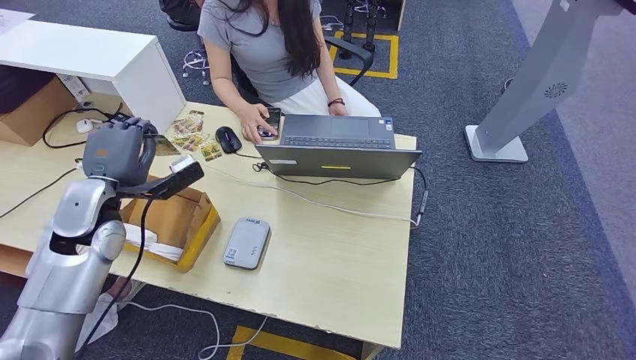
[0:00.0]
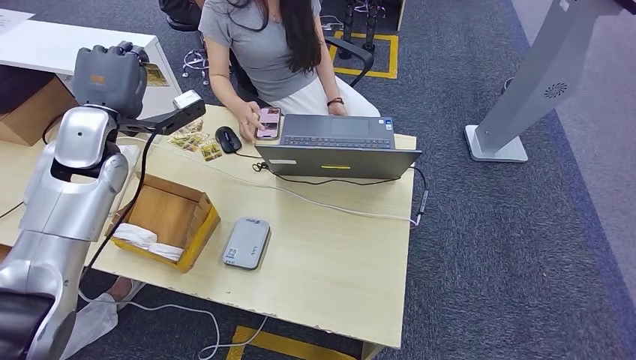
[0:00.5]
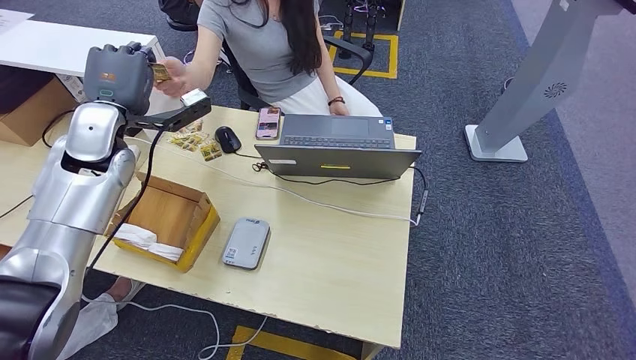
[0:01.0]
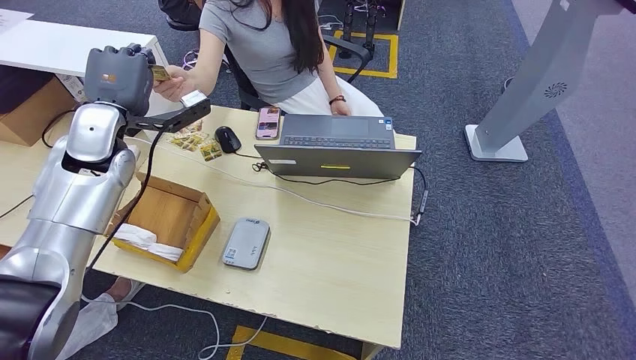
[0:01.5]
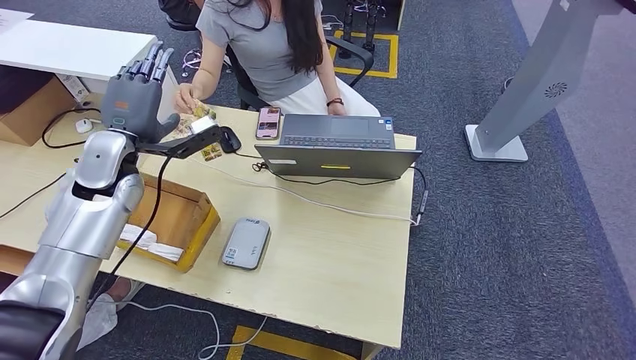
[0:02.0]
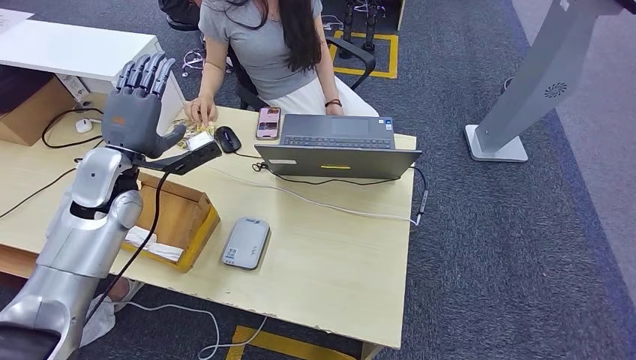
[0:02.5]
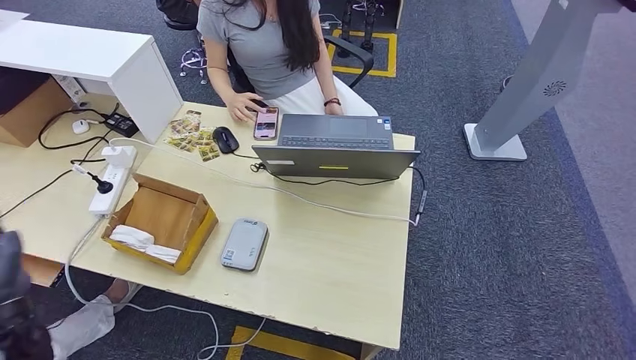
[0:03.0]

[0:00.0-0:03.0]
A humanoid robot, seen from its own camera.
Step, 0:00.0 to 0:02.5: Hand the room key to the person.
0:00.0 to 0:01.5: The left hand goes some 10 cm forward and upward.
0:01.5 to 0:03.0: The left hand travels backward and downward by about 30 cm.

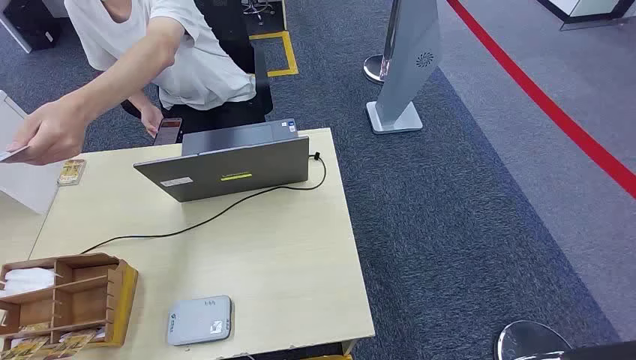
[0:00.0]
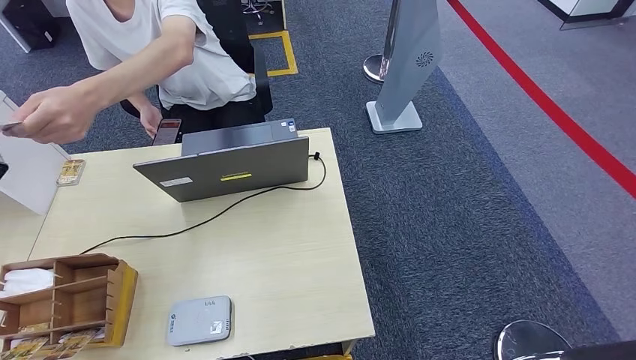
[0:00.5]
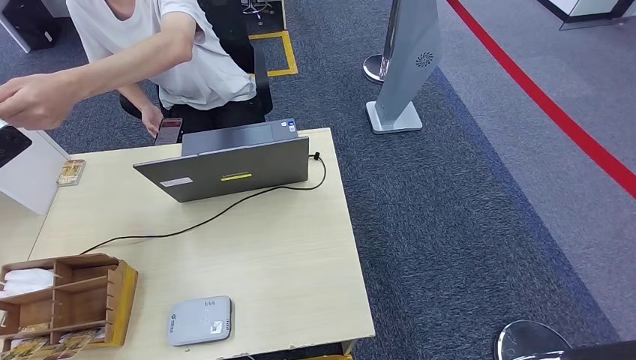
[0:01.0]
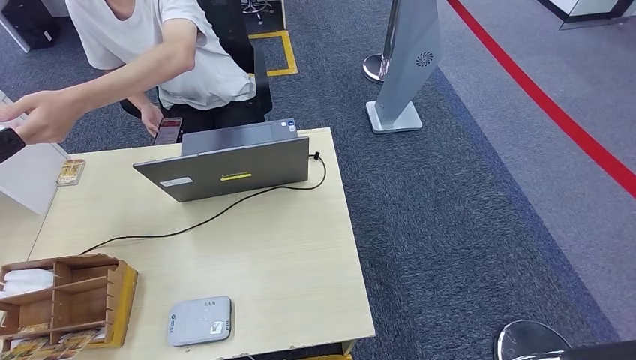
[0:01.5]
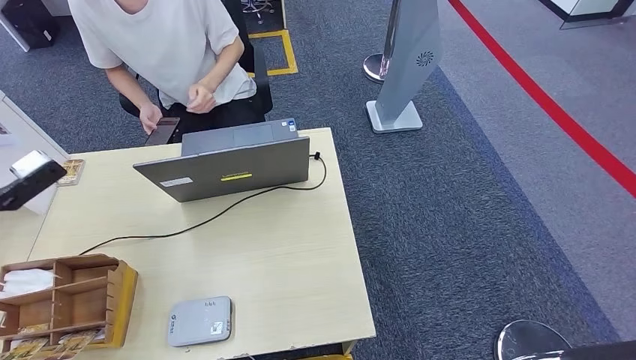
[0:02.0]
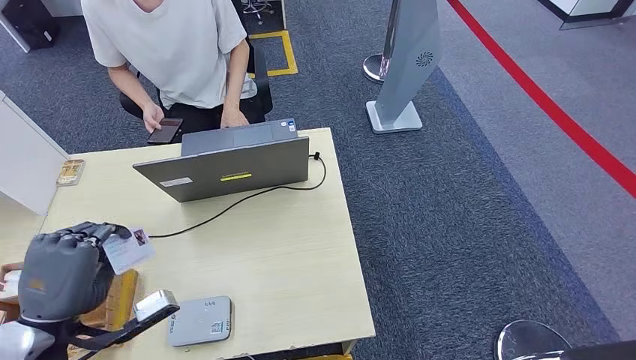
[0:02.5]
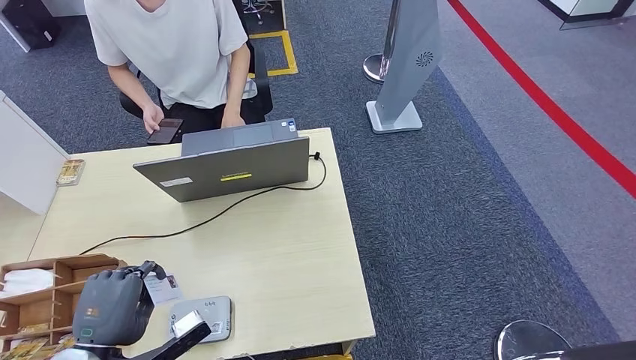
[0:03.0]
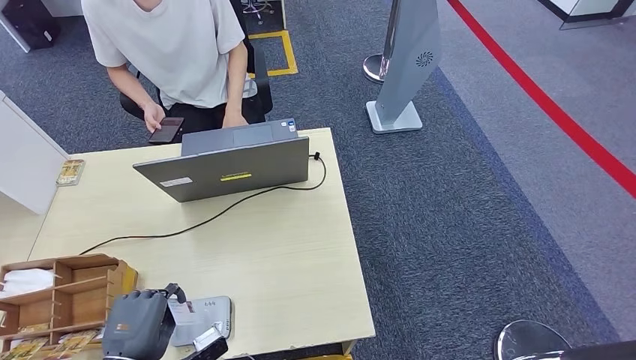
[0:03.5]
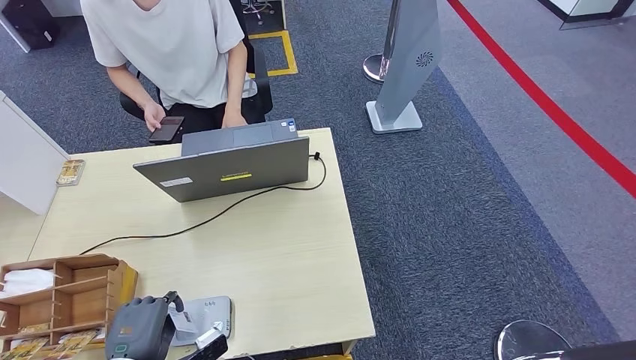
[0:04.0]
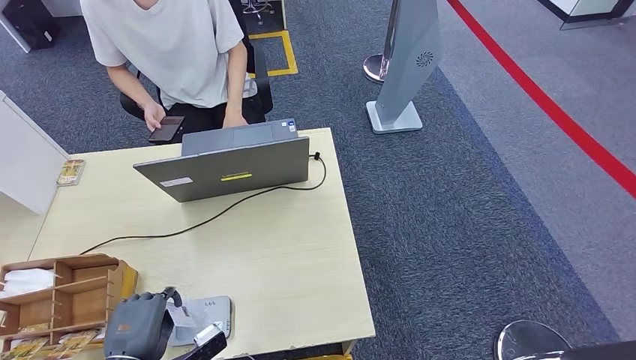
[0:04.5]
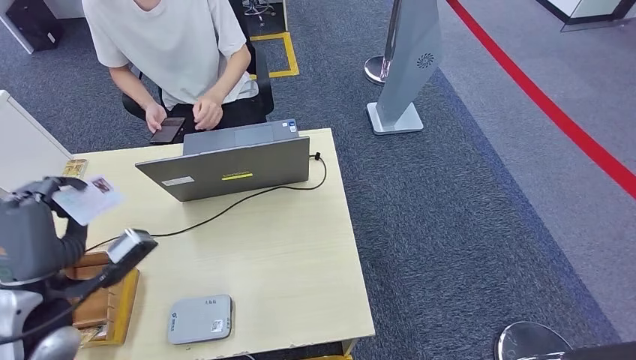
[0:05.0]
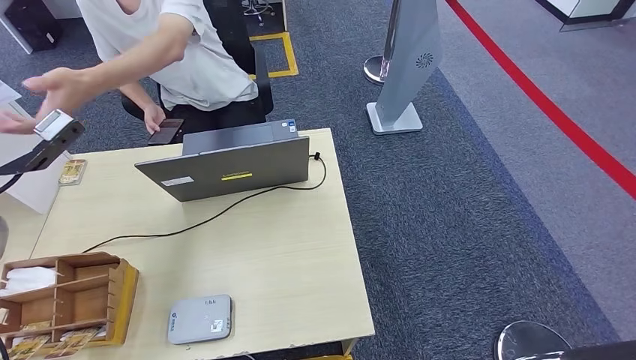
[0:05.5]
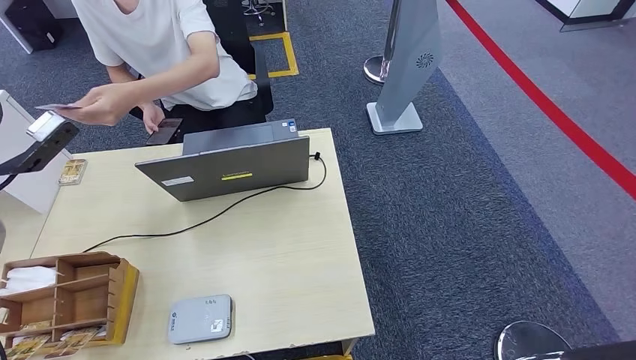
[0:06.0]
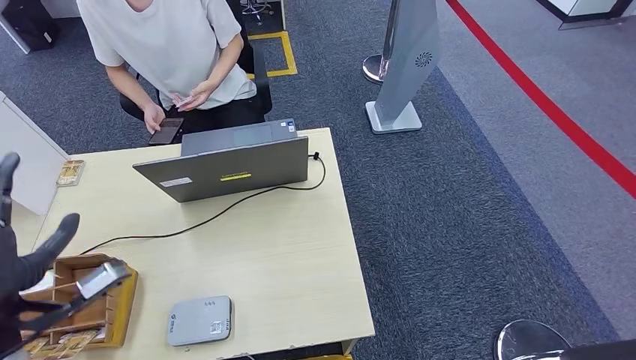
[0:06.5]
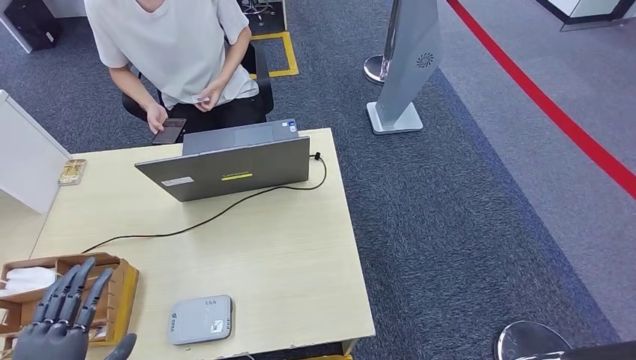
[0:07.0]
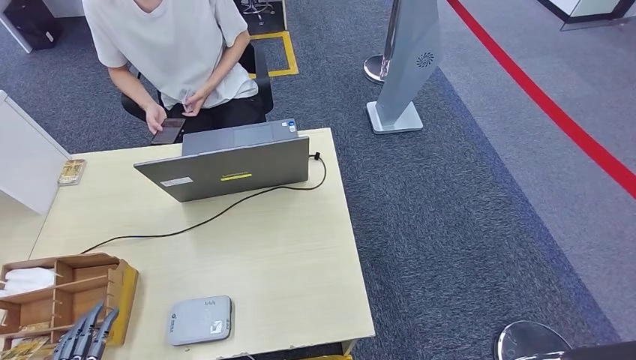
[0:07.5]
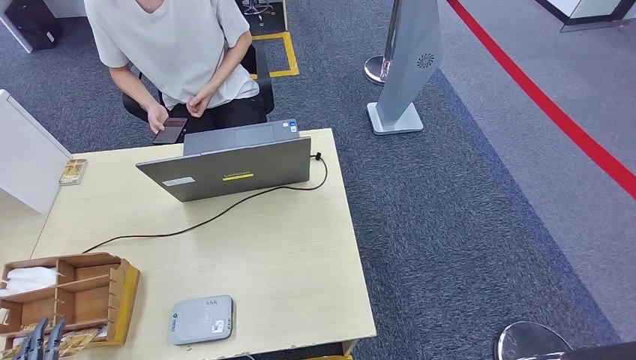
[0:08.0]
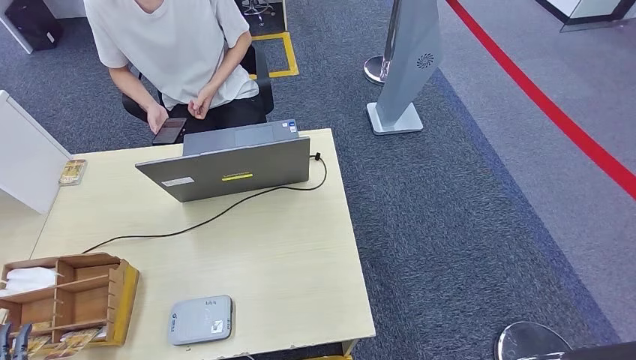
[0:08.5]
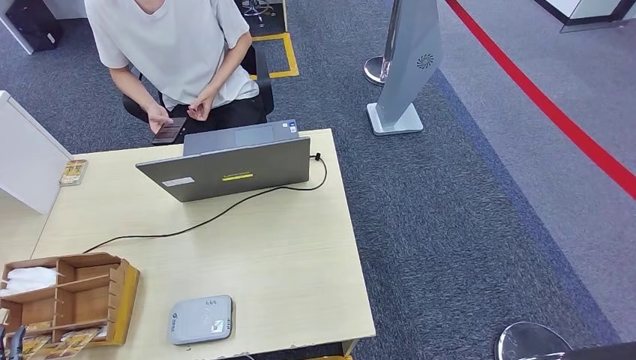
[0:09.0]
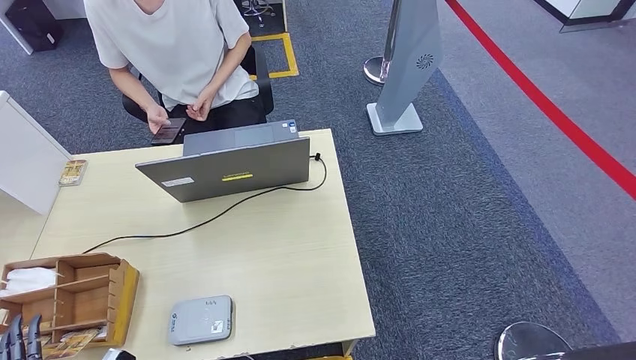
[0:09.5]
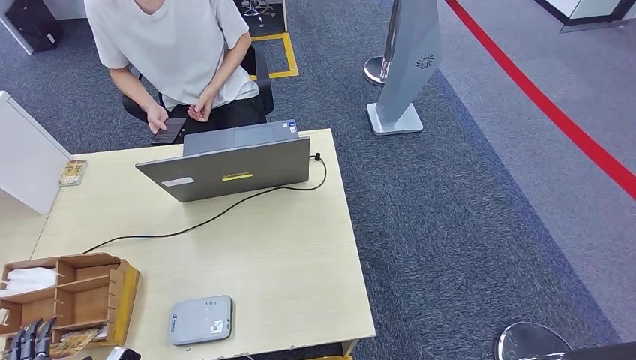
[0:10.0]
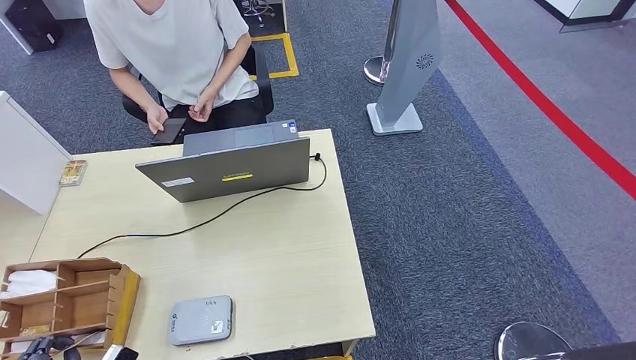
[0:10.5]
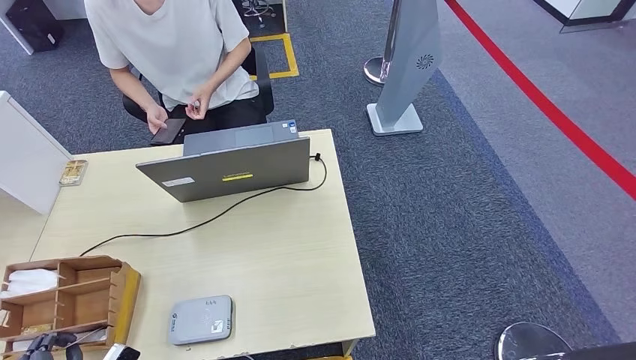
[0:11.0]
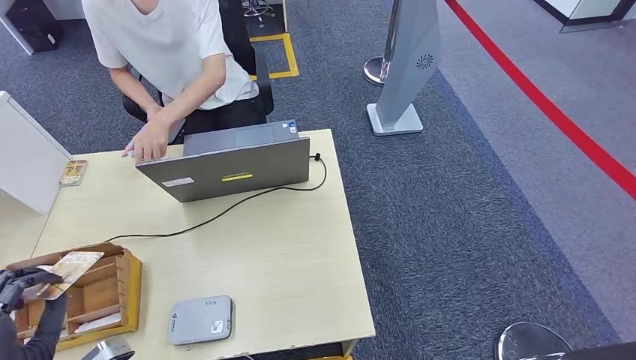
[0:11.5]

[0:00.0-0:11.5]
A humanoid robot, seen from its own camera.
Step, 0:00.0 to 0:01.0: Take the ID card from the person's hand.
Step, 0:01.5 to 0:05.5: Place the ID card on the card reader.
Step, 0:06.0 to 0:08.0: Hand the ID card to the person.
Step, 0:08.5 to 0:11.0: Pick up the room key from the key card box.
0:02.0 to 0:04.0: The right hand changes place by roughly 5 cm; the left hand shifts approximately 35 cm downward, backward and to the right.
0:04.0 to 0:06.0: The left hand heads forward, upward and to the left, covering some 35 cm, while the right hand heads downward, covering about 5 cm.
0:06.0 to 0:07.5: The left hand heads backward and downward, covering some 40 cm, while the right hand travels upward by about 5 cm.
0:07.5 to 0:09.5: The left hand travels downward and forward by approximately 10 cm.
0:09.5 to 0:11.5: The left hand moves upward, about 10 cm.

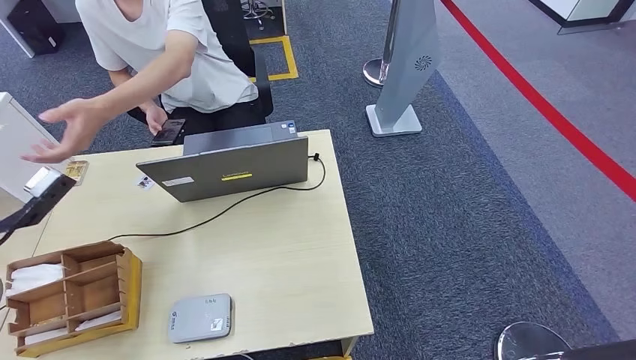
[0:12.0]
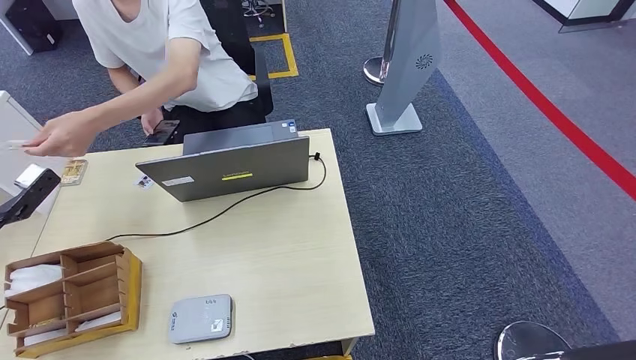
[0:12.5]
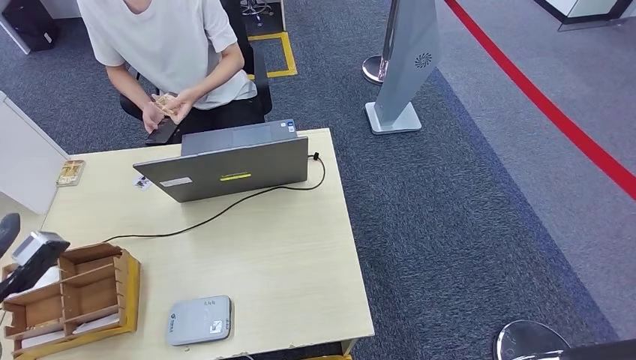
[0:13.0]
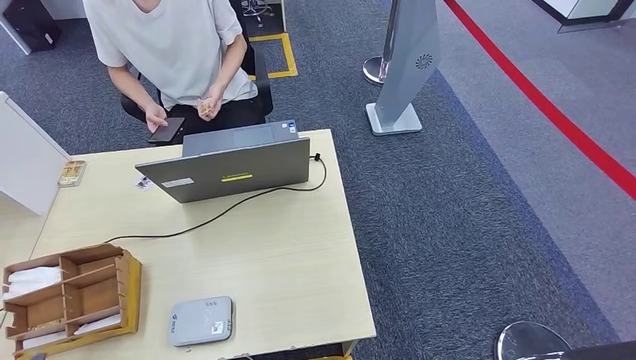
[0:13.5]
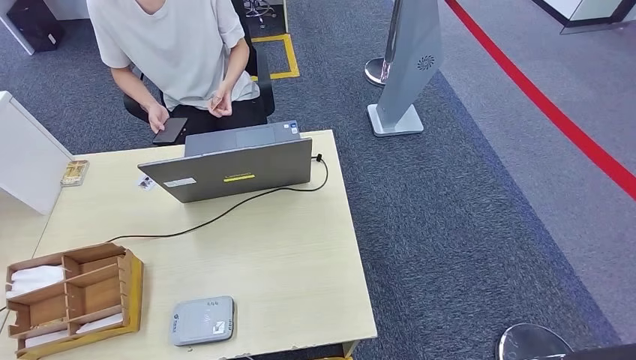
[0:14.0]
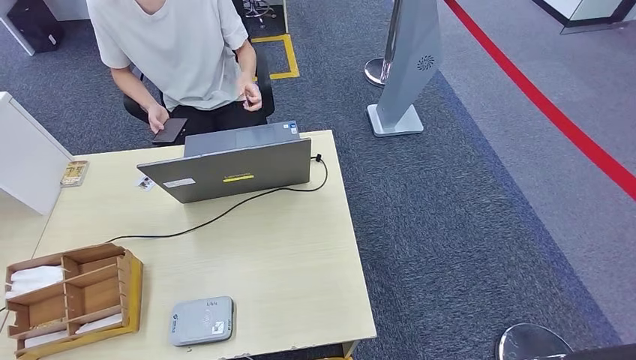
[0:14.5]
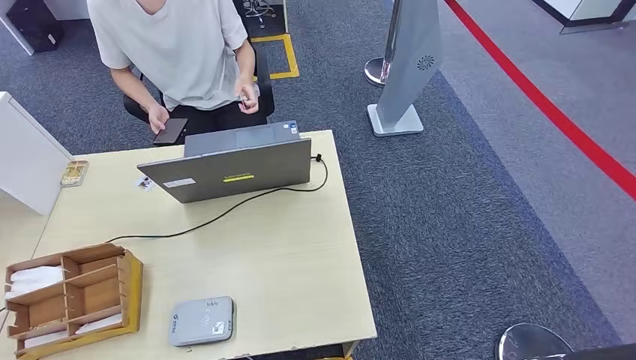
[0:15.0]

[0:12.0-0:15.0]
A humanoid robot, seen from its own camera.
Step, 0:12.0 to 0:14.5: Hand the room key to the person.
0:12.0 to 0:13.5: The left hand is displaced backward and downward by roughly 25 cm.
0:13.5 to 0:15.0: The left hand travels downward by about 25 cm, while the right hand is displaced downward by roughly 5 cm.

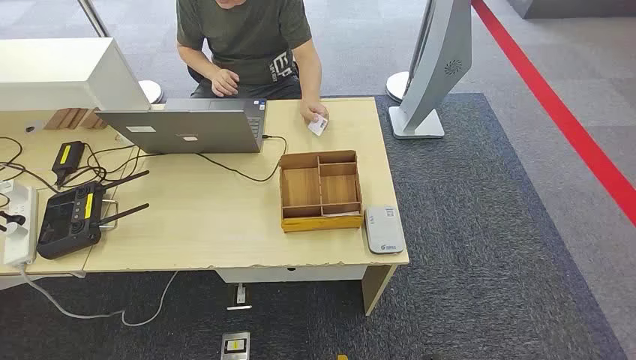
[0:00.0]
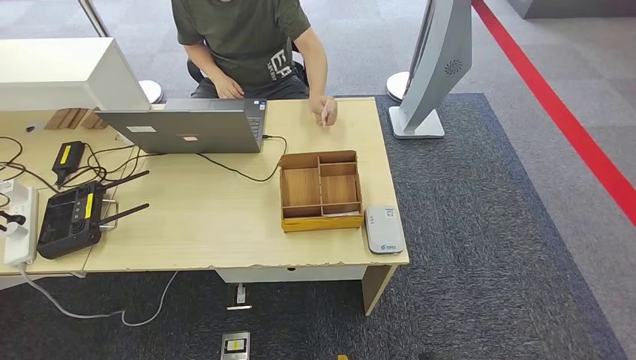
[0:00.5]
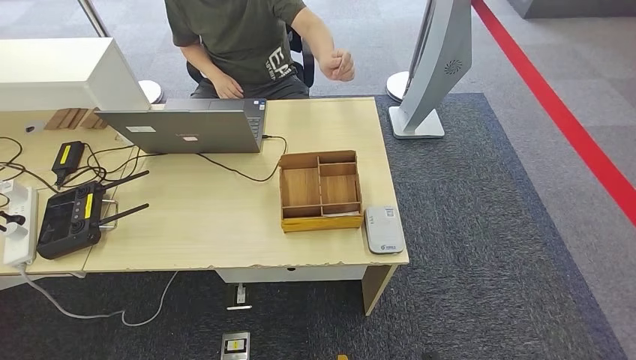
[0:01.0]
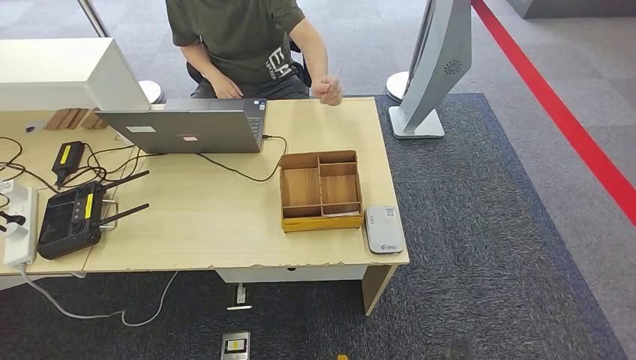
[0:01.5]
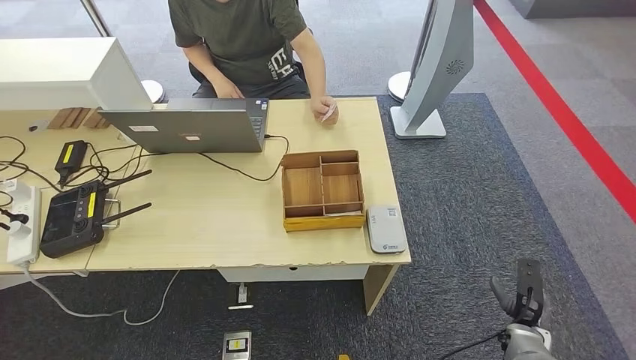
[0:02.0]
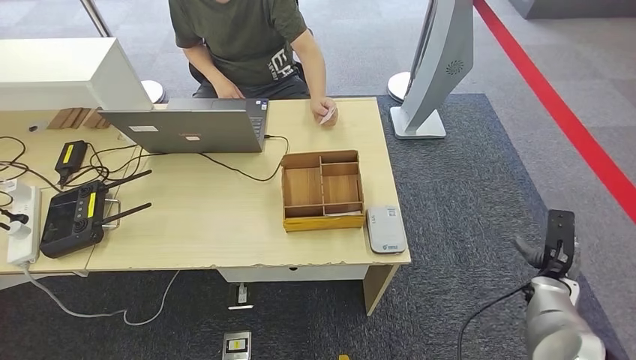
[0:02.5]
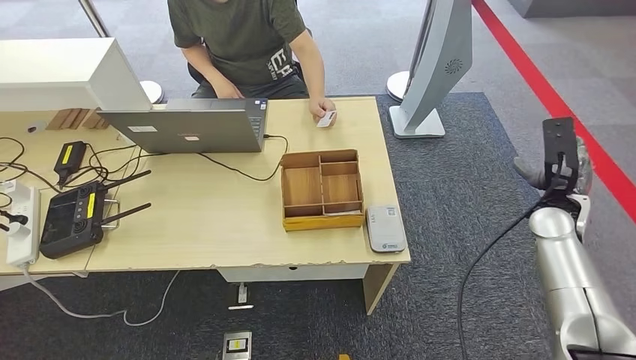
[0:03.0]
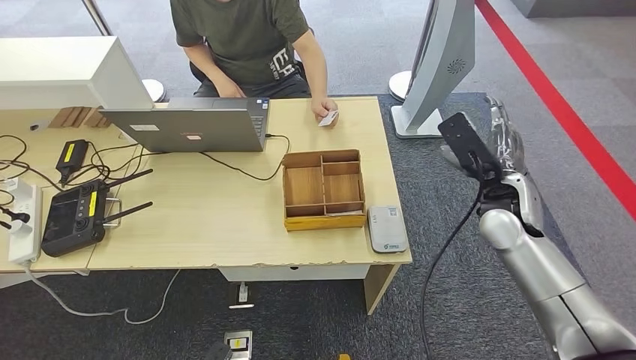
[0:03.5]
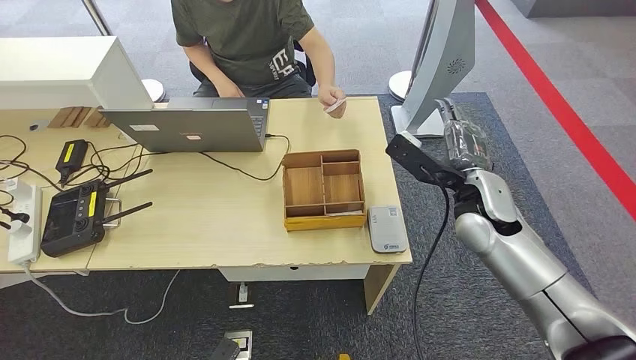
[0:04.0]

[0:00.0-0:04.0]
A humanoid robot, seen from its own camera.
0:02.0 to 0:04.0: The left hand is displaced forward by approximately 5 cm, while the right hand shifts roughly 35 cm upward, forward and to the left.
